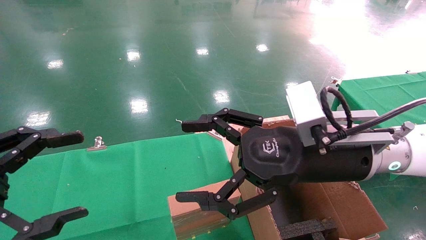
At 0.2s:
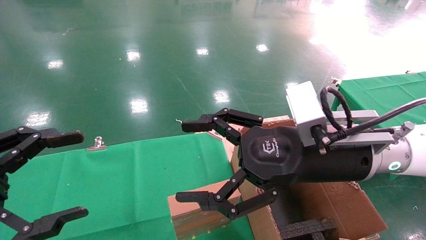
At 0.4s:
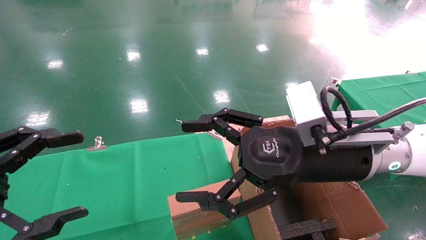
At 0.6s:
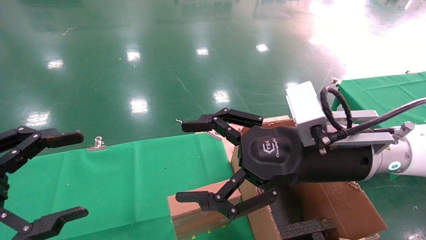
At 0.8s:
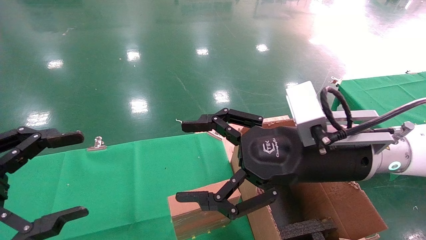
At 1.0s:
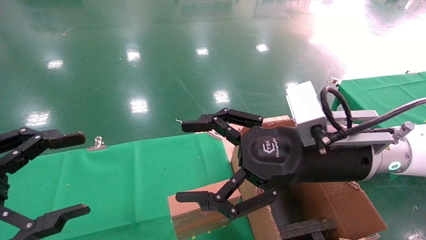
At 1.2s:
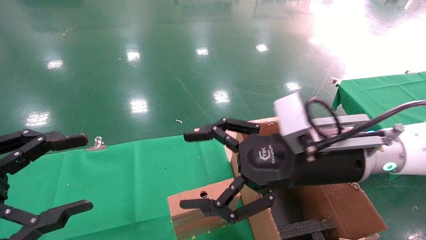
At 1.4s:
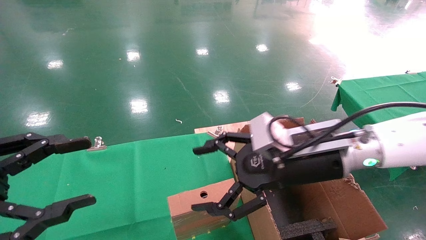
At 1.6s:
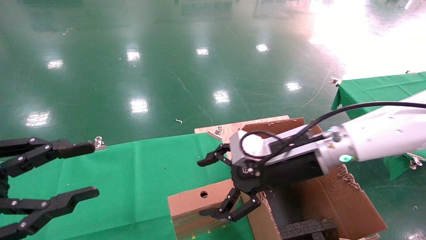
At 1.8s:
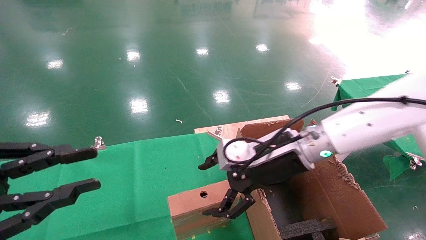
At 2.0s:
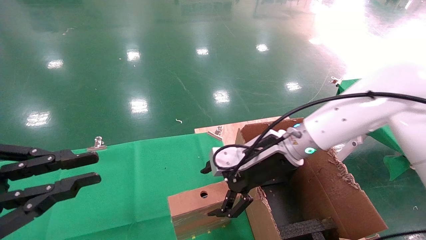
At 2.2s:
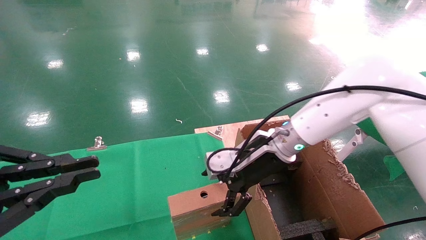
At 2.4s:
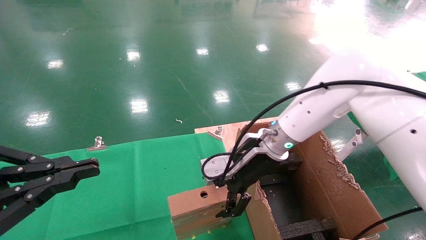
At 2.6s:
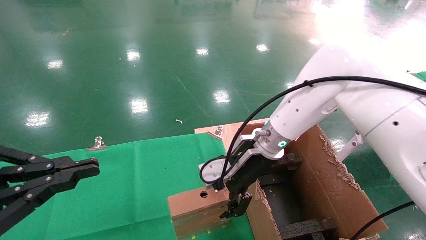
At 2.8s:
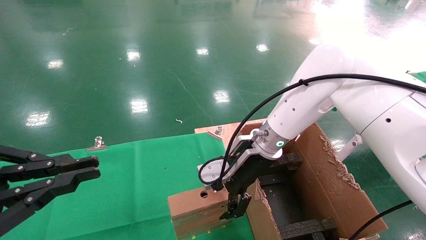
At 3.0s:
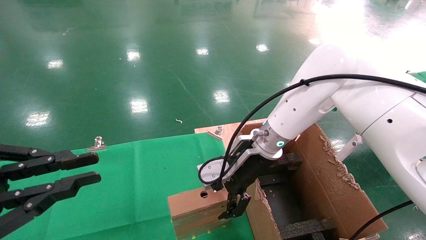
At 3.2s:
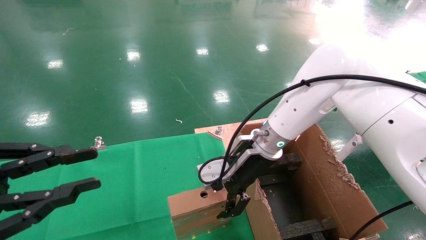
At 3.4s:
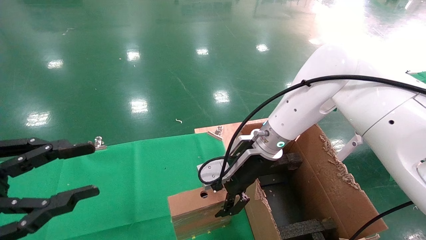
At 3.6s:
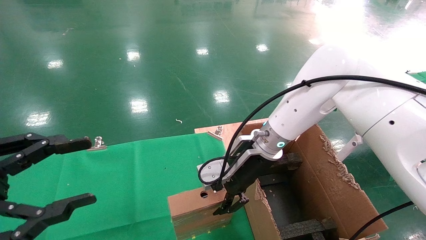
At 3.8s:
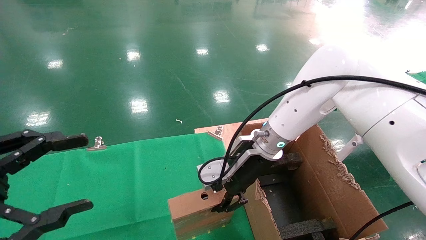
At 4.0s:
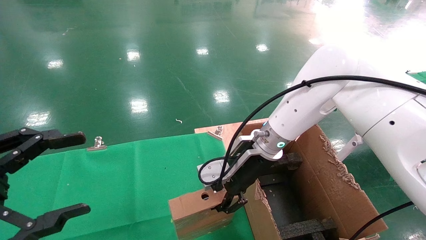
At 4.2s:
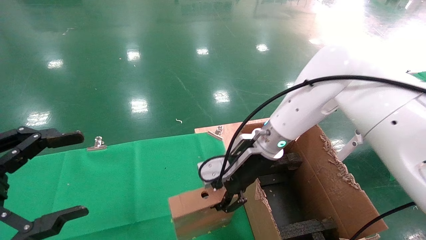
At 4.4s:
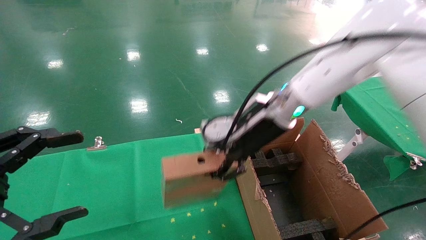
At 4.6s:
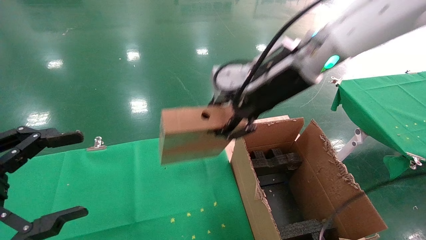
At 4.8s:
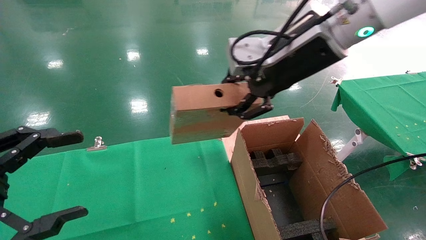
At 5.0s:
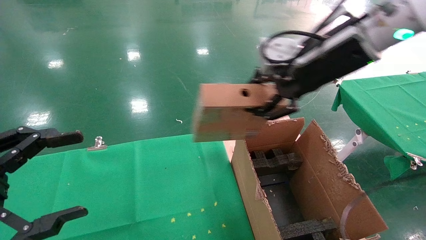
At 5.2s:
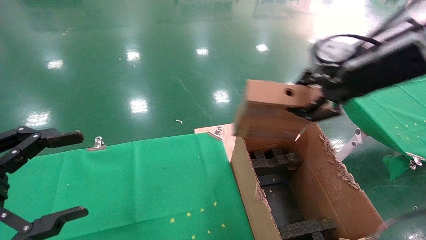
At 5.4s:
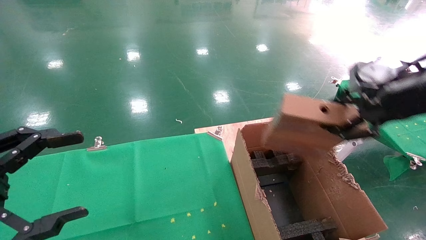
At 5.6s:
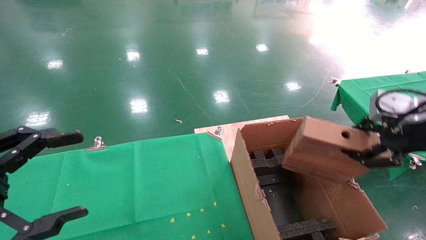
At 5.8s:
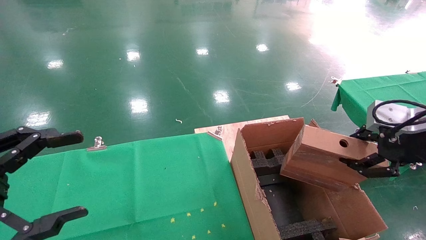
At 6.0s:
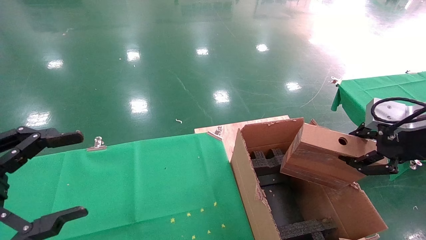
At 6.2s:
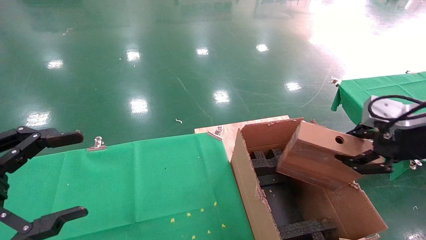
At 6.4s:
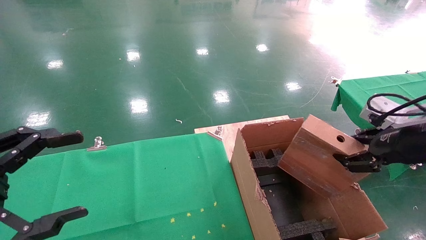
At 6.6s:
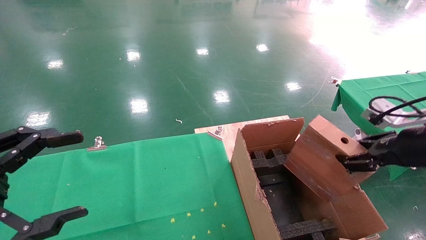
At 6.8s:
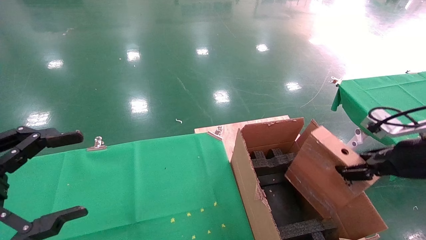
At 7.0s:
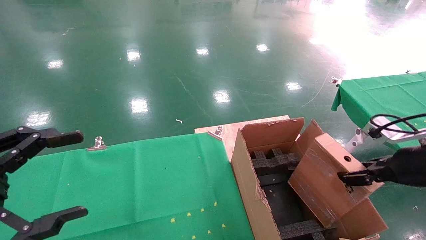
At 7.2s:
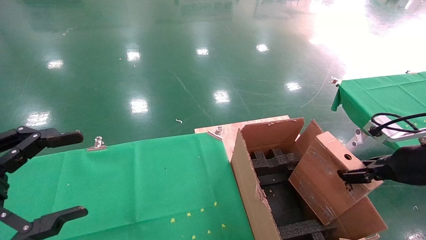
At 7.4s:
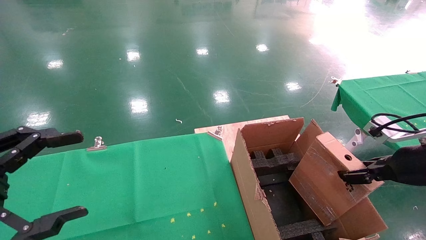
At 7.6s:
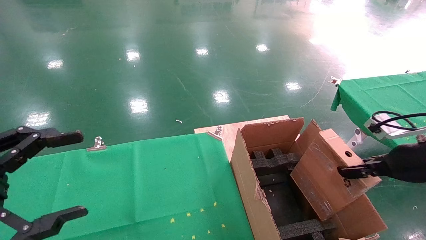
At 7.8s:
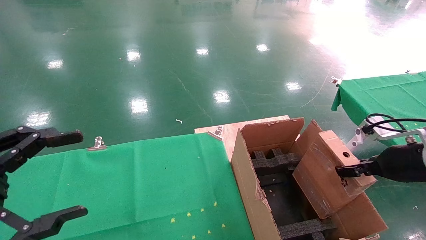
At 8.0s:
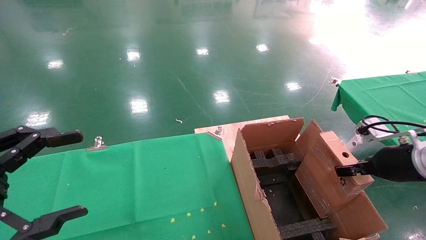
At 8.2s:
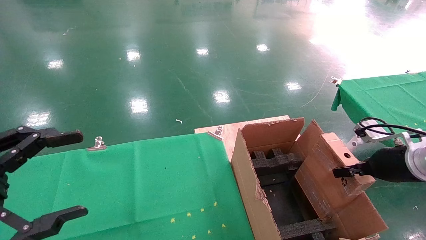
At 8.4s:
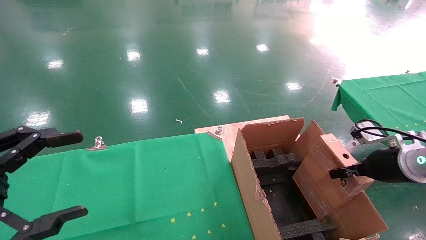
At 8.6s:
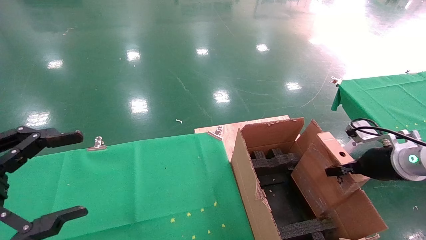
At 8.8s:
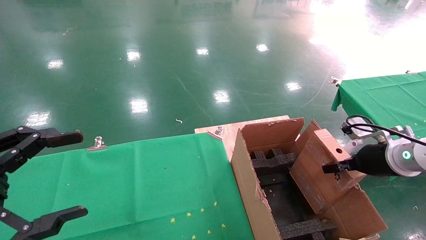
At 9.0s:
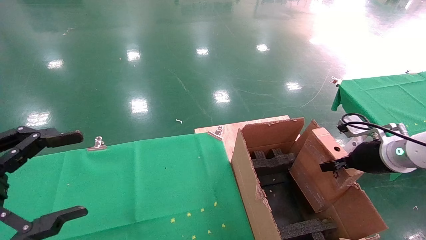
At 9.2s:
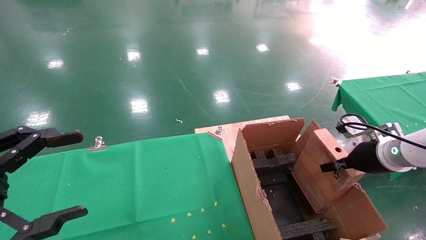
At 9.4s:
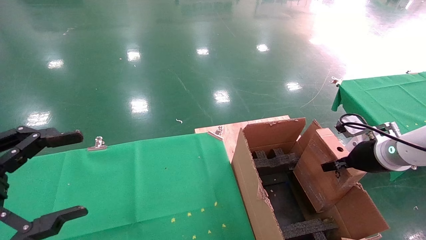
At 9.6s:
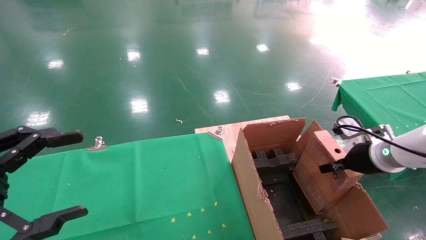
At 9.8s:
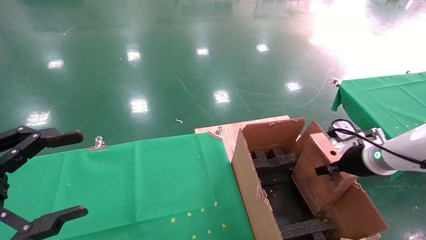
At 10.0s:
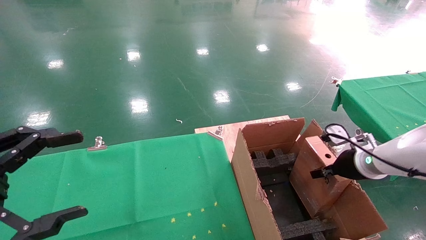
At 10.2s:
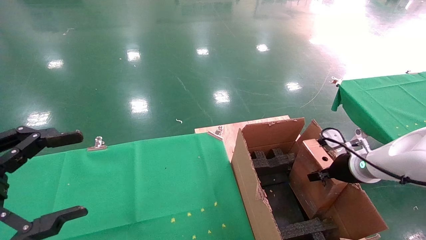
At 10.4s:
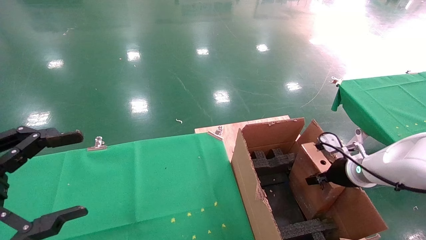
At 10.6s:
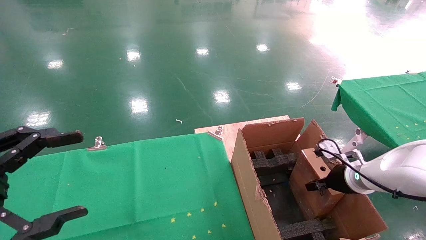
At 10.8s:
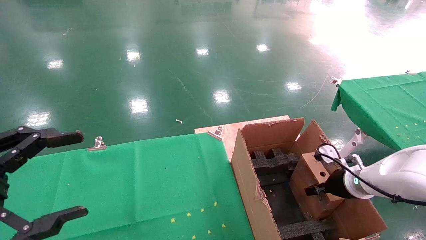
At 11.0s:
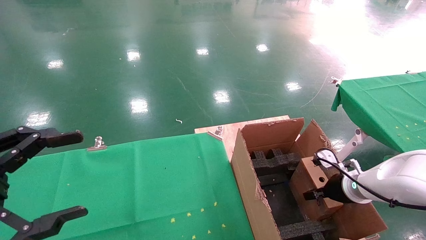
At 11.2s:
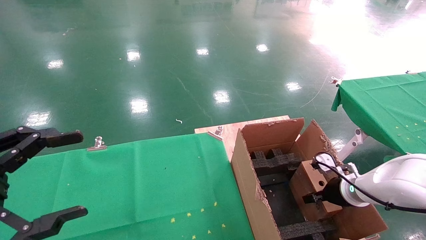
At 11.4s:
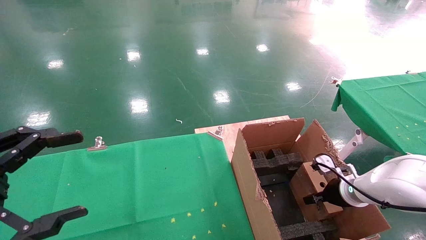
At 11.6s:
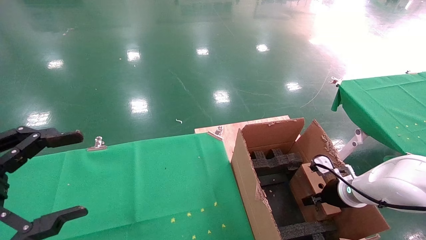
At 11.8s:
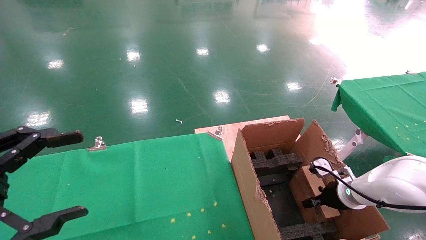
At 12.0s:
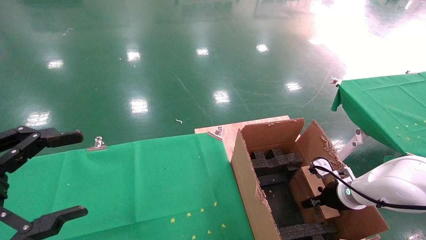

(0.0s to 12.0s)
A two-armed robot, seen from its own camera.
Task of the whole recording: using a robotic arm to pick up a cardboard box and palace it the carton.
Step, 1.6s - 4.2s: Pick up the mouse and the power cord paper box.
0.0s - 1.6s: The right gripper heads forward, covering approximately 5 cm, while the left gripper closes.
1.6s - 3.0s: The left gripper closes its fingers. The right gripper travels forward by roughly 10 cm.
3.0s - 4.4s: The right gripper heads upward, covering roughly 10 cm, and closes up, while the left gripper opens.
4.4s - 6.0s: The right gripper is displaced to the right and backward by approximately 30 cm.
6.0s - 7.6s: The right gripper travels downward by about 10 cm.
7.6s - 9.0s: The right gripper is displaced forward by approximately 5 cm.
9.0s - 10.4s: The right gripper moves downward, about 5 cm.
10.4s - 12.0s: The right gripper shifts approximately 5 cm downward.

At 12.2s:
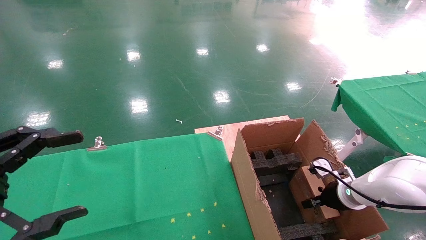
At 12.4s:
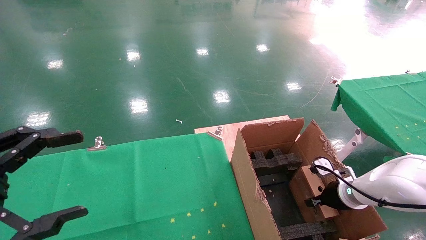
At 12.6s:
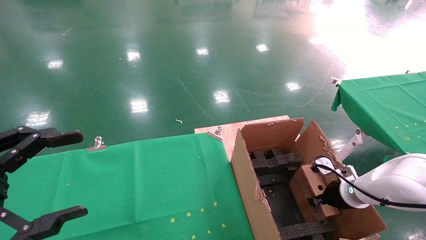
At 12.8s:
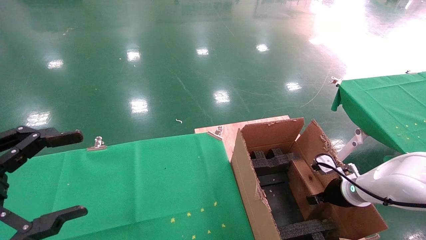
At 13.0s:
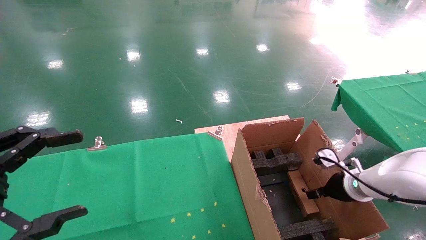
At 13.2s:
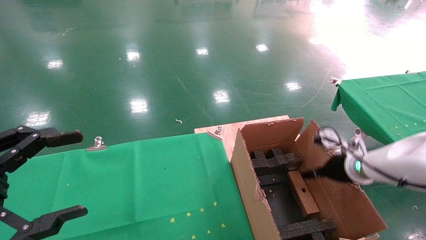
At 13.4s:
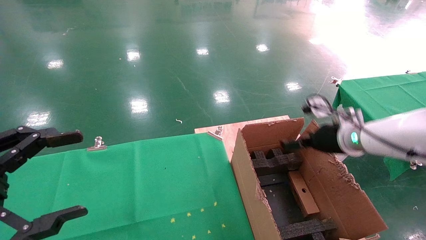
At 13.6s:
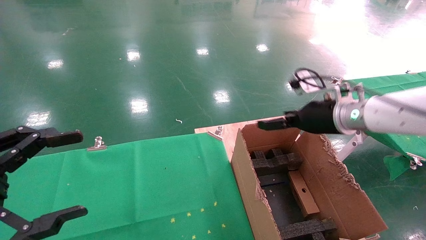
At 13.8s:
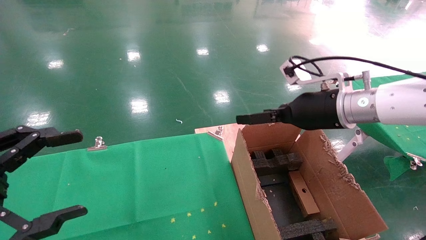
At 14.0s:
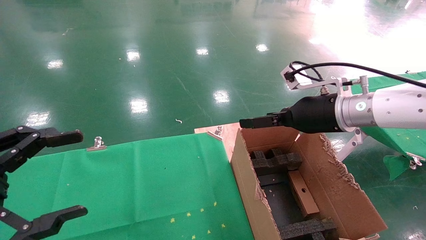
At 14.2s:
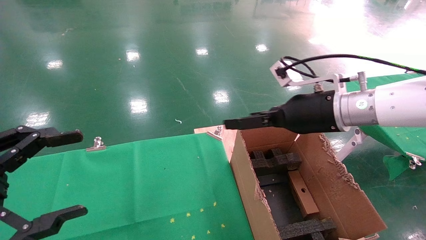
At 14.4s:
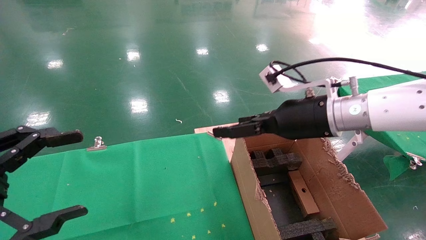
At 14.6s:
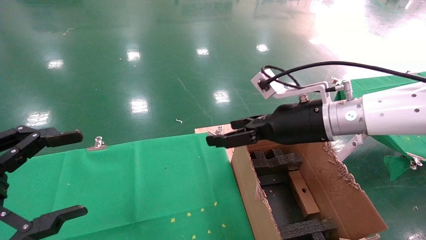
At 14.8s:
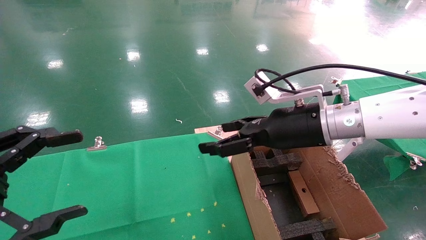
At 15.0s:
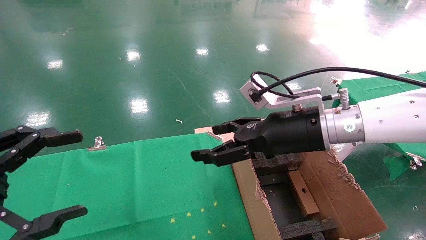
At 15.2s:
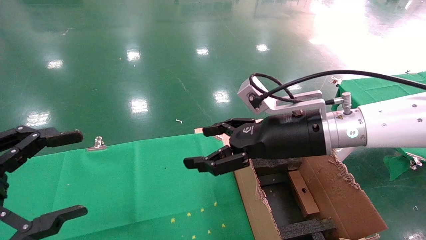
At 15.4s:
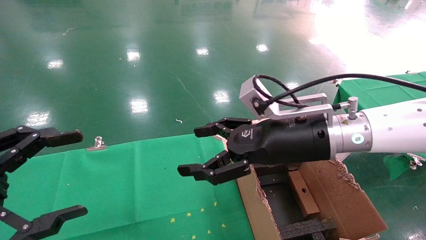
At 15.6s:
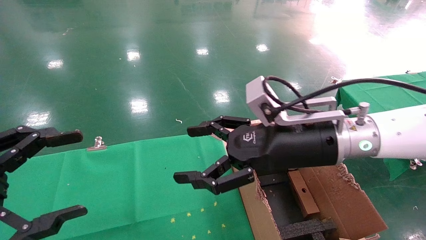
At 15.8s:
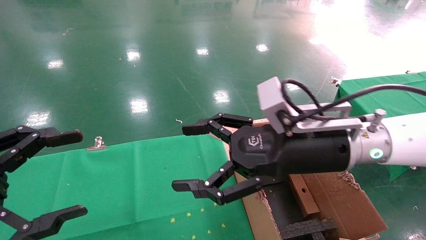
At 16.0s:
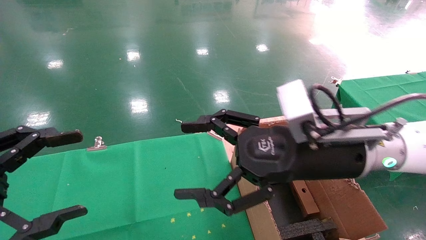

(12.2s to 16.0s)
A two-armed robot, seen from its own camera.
Task of the whole recording: using a robotic arm to pick up a cardboard box and palace it the carton.
12.2s - 13.4s: The right gripper heads upward, covering some 15 cm, and opens its fingers.
13.4s - 14.8s: The right gripper travels to the left, upward and backward by some 15 cm.
14.8s - 16.0s: The right gripper is displaced backward by approximately 5 cm.

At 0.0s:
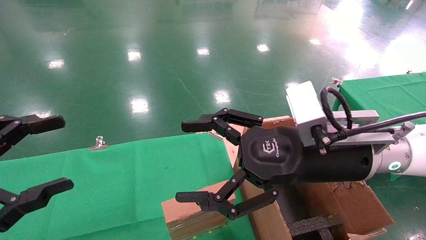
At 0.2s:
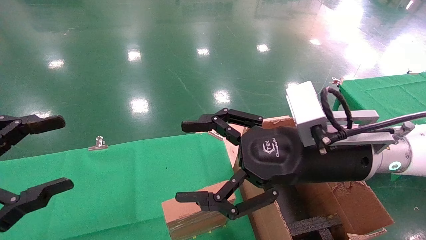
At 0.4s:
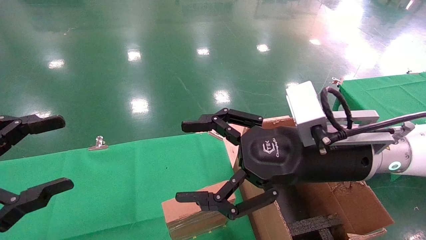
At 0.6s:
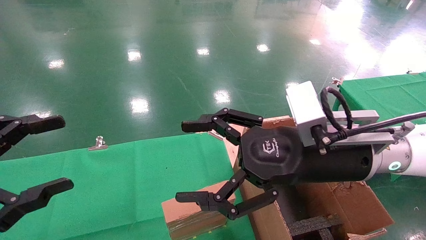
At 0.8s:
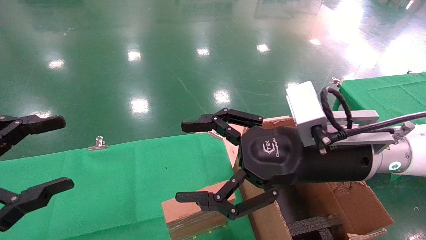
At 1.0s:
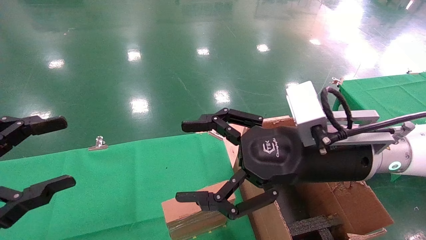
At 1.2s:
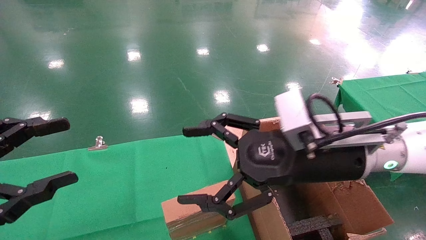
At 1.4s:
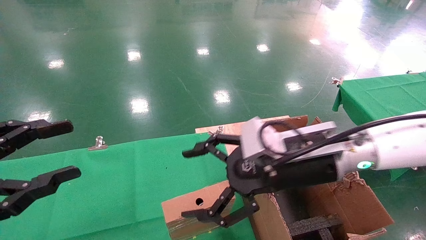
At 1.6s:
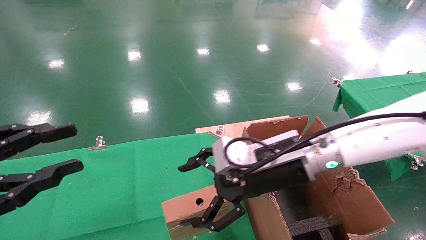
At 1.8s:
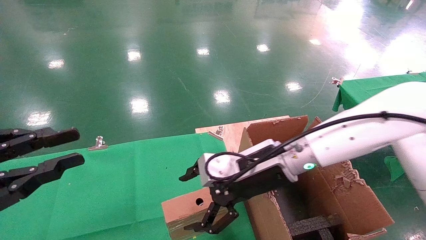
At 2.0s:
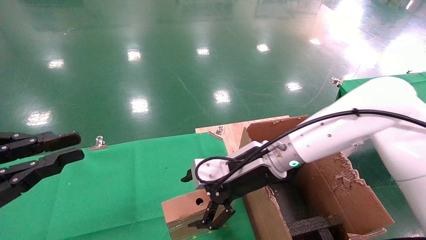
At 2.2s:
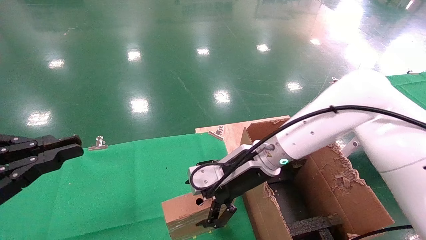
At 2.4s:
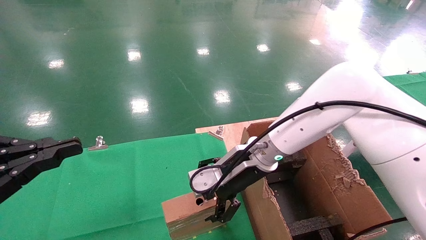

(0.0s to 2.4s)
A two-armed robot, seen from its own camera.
Task of the whole recording: using a robotic arm to pick up a cardboard box and palace it the carton.
0.0s - 1.2s: The grippers stay close to where they were, moving slightly.
1.2s - 2.4s: The left gripper closes its fingers; the right gripper is displaced forward, to the left and downward by approximately 15 cm.
